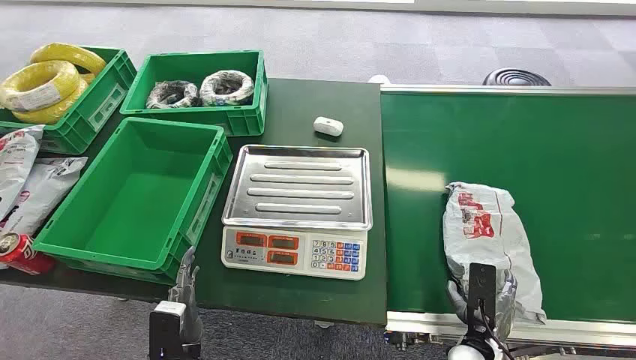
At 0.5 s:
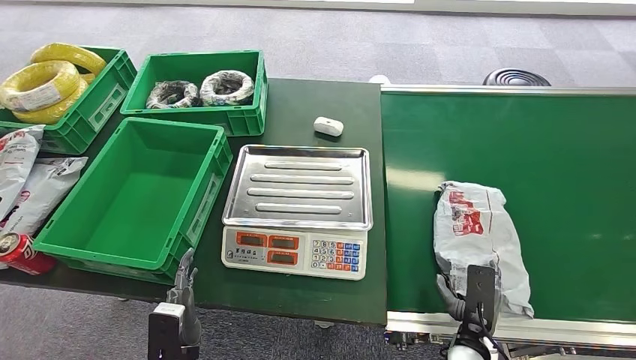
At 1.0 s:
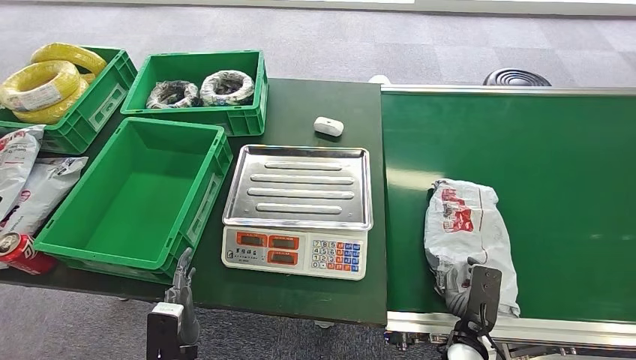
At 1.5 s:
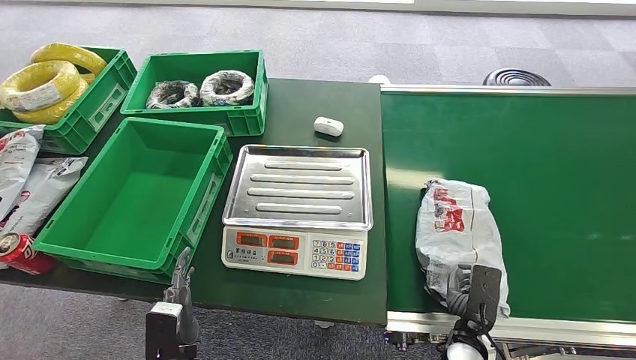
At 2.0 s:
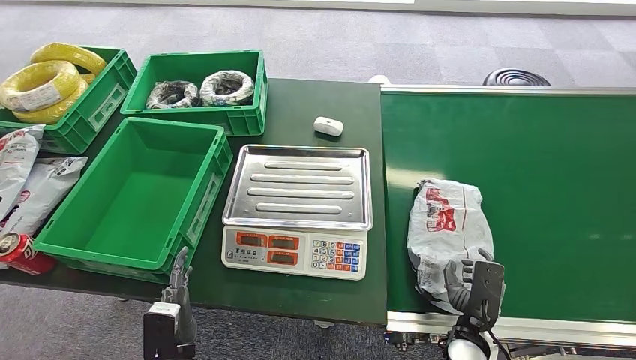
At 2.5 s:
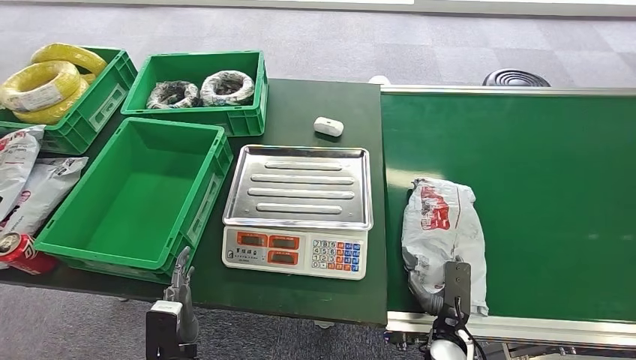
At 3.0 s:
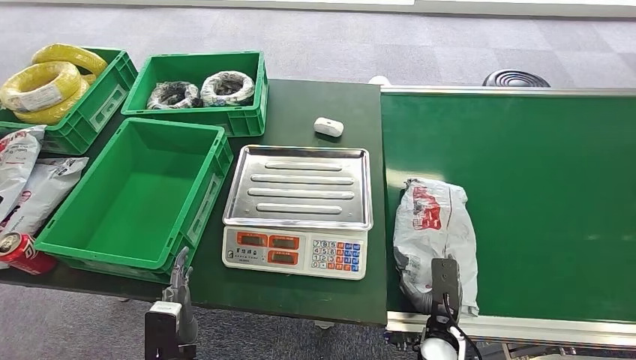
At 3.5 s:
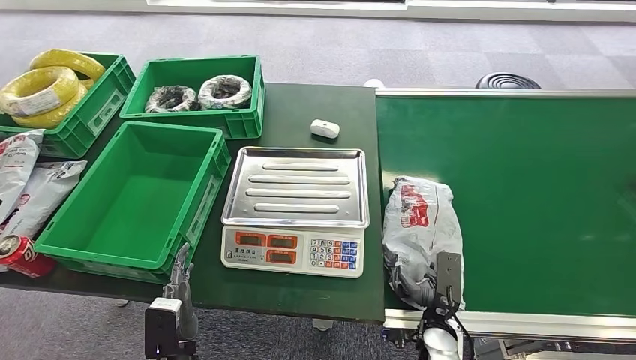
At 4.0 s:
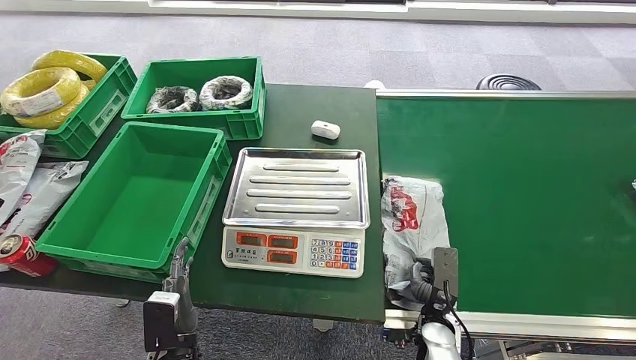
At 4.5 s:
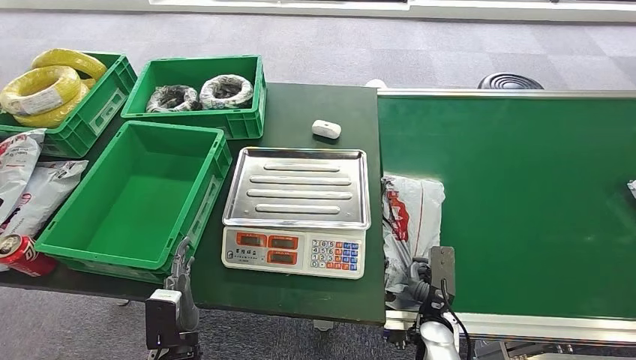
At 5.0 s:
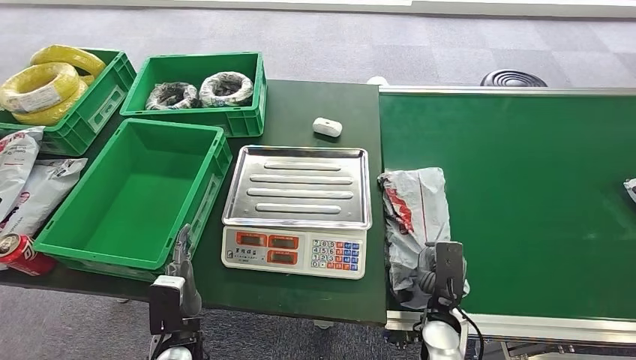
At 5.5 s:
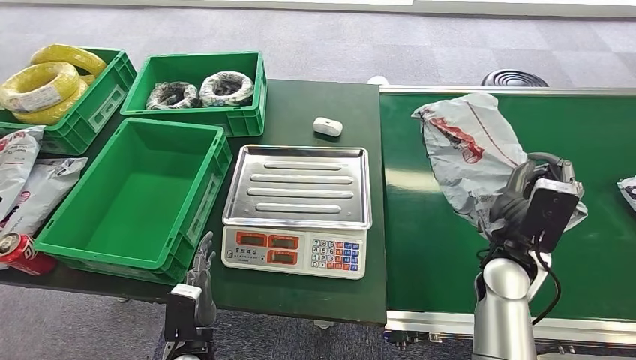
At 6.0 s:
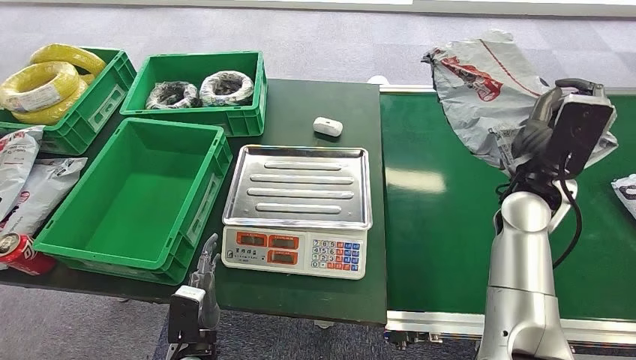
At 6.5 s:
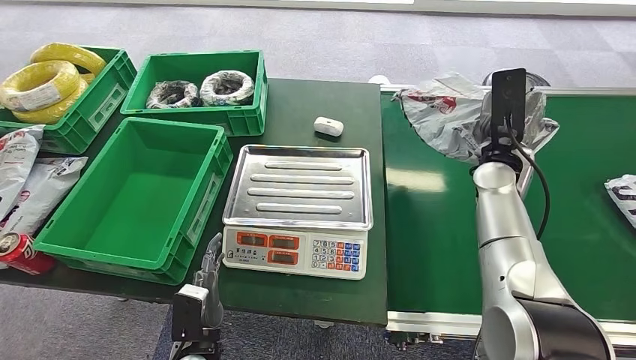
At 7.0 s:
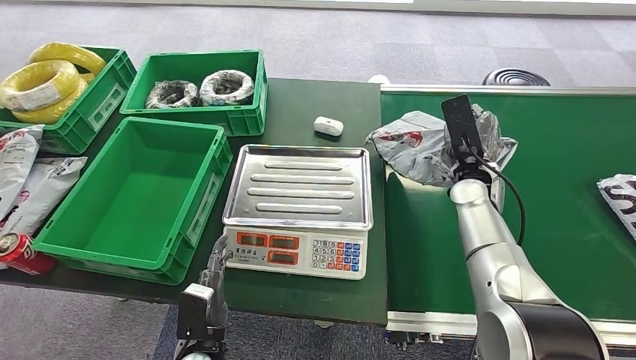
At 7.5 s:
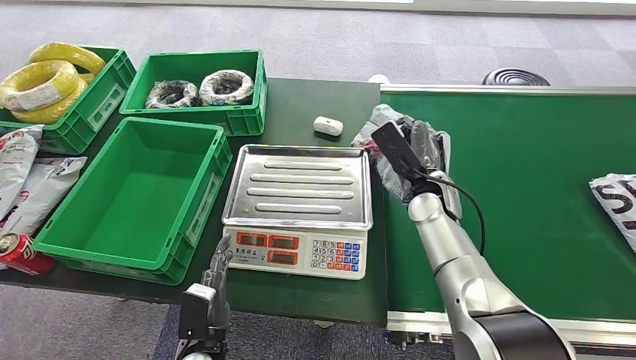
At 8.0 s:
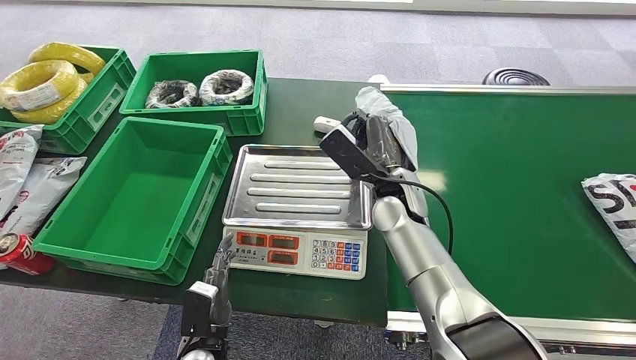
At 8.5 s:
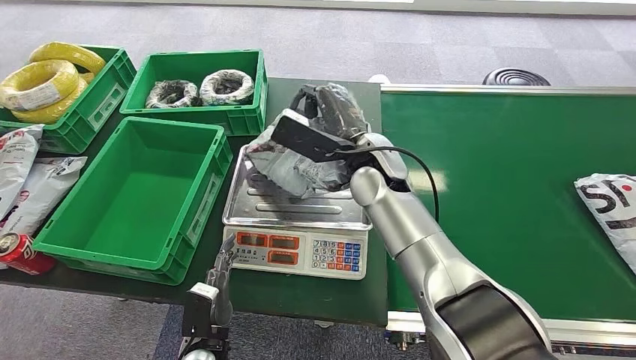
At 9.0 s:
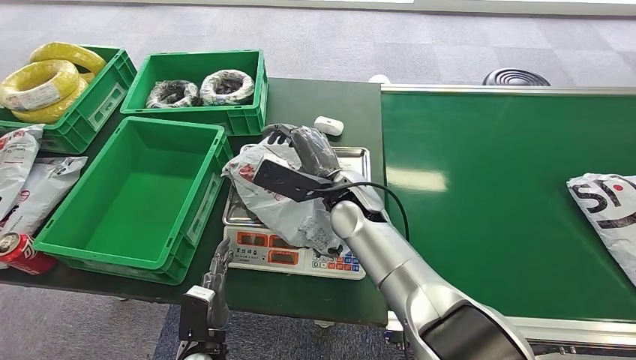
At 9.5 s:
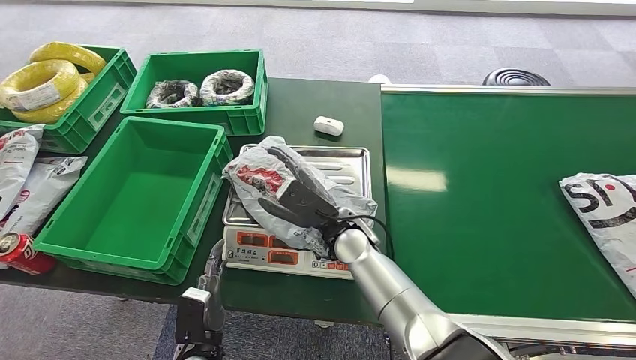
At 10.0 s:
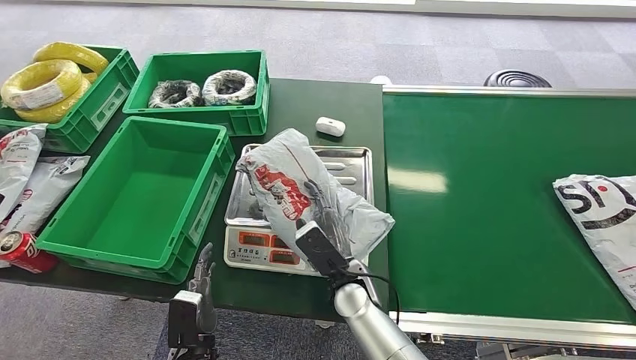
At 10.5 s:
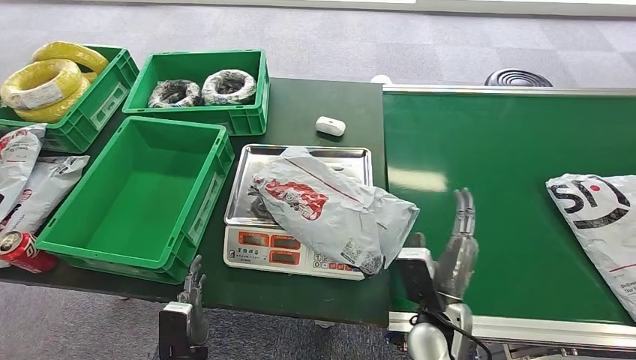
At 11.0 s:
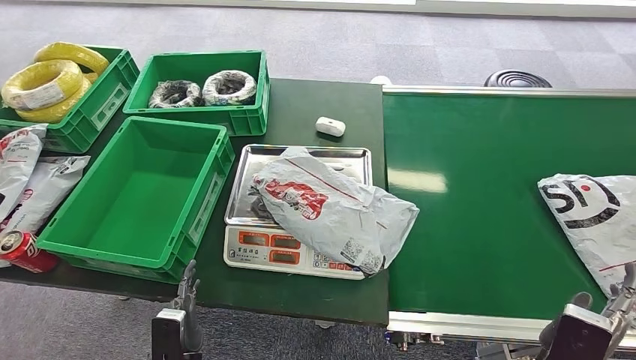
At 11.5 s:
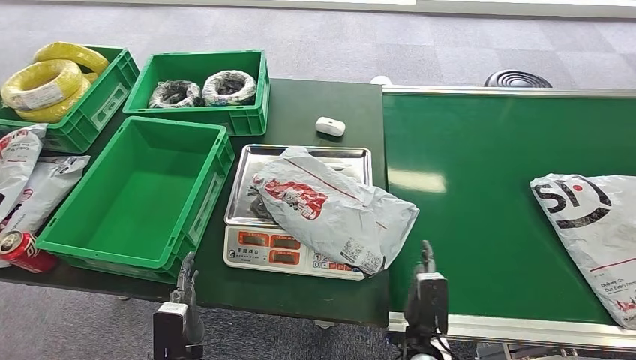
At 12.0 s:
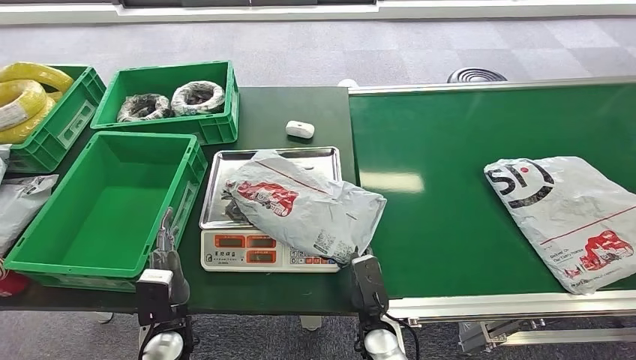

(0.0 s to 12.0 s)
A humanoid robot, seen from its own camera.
Step, 0.0 s - 5.0 s: Pick up the package from the conveyor belt.
Step, 6.0 s - 9.0 s: Place the package onto the inbound machine.

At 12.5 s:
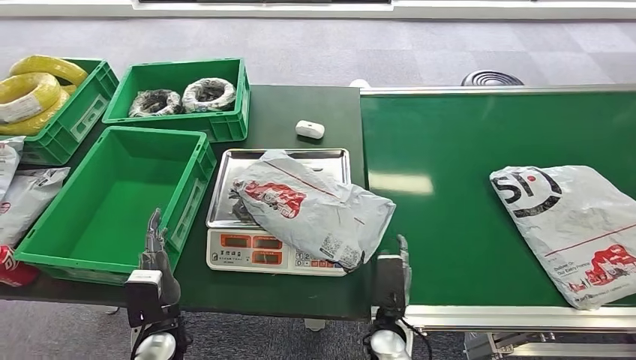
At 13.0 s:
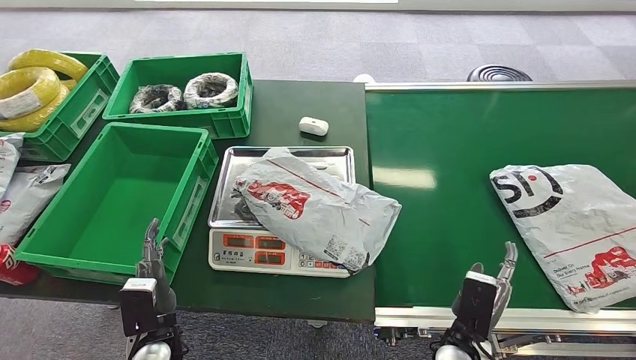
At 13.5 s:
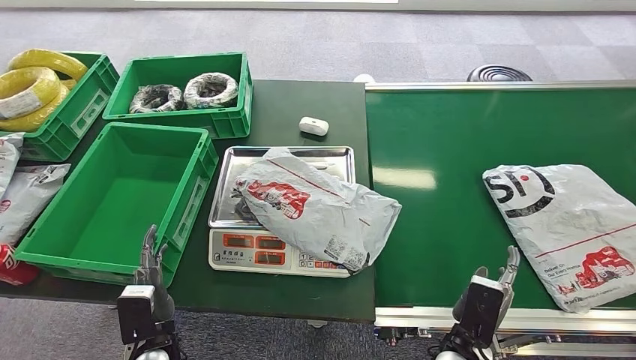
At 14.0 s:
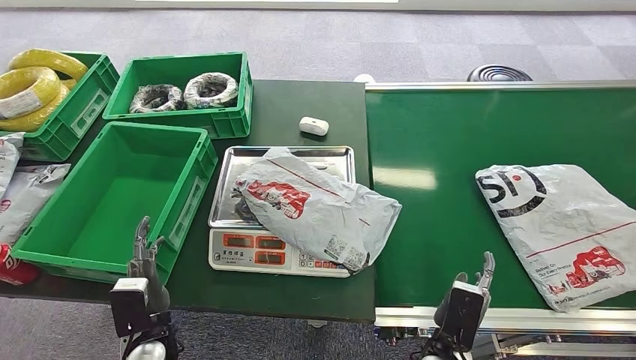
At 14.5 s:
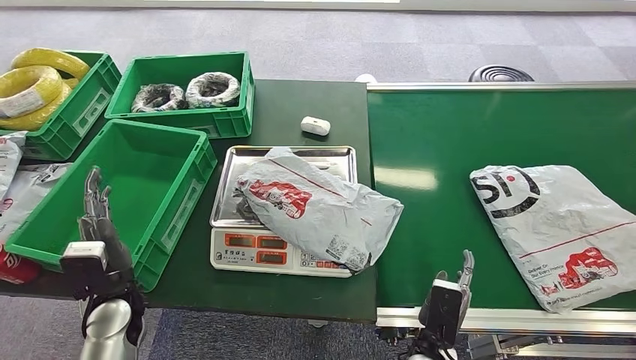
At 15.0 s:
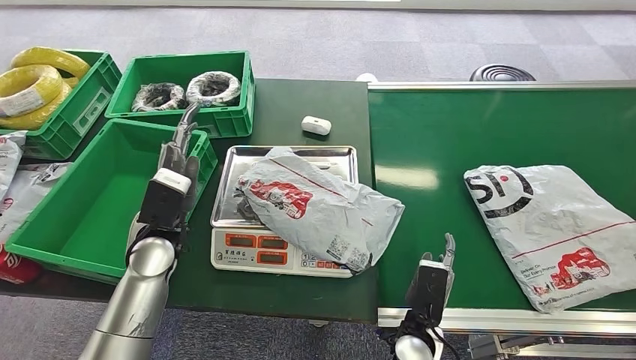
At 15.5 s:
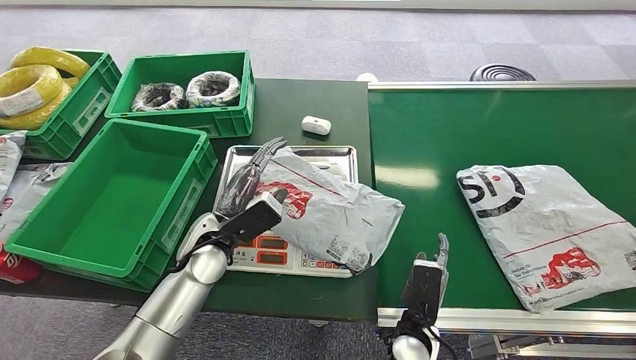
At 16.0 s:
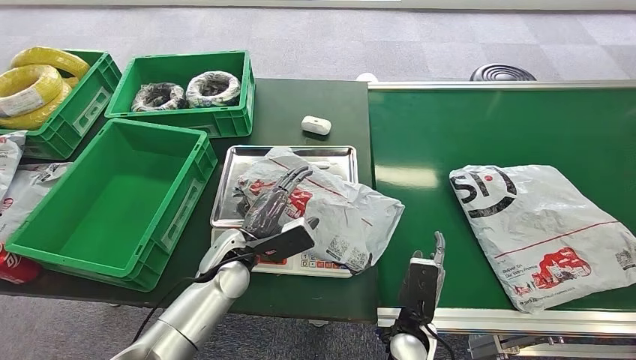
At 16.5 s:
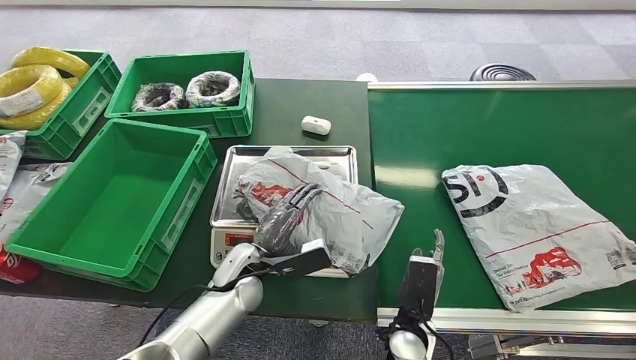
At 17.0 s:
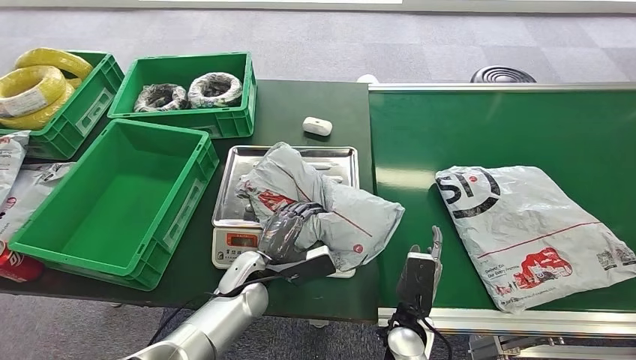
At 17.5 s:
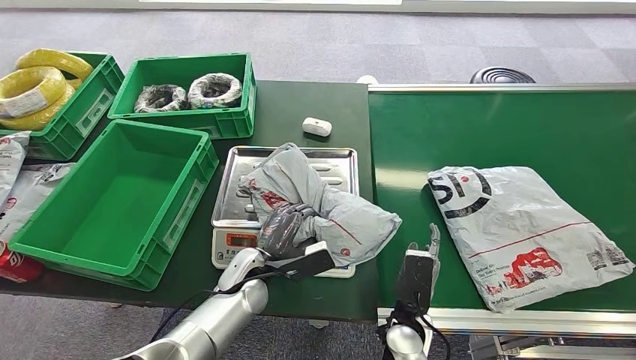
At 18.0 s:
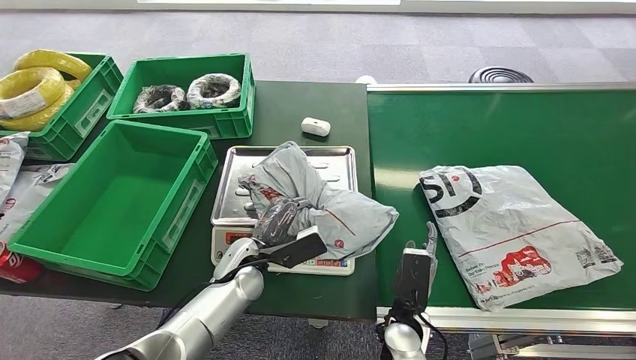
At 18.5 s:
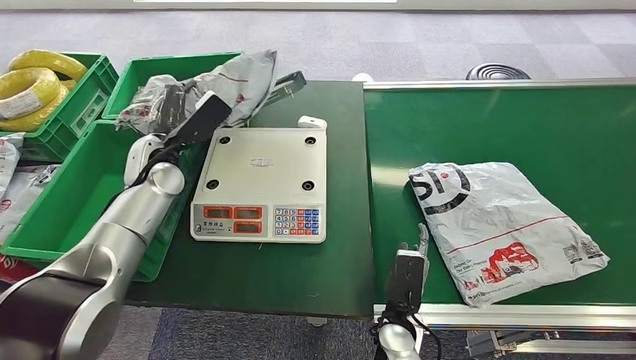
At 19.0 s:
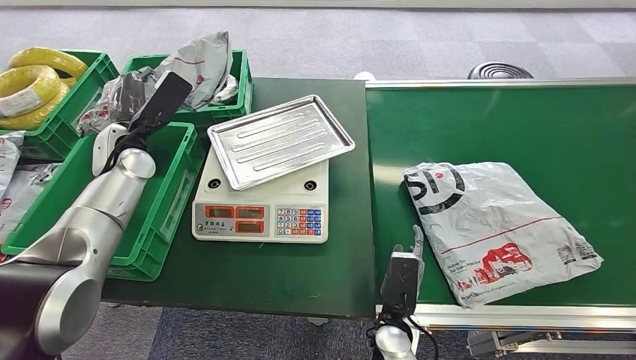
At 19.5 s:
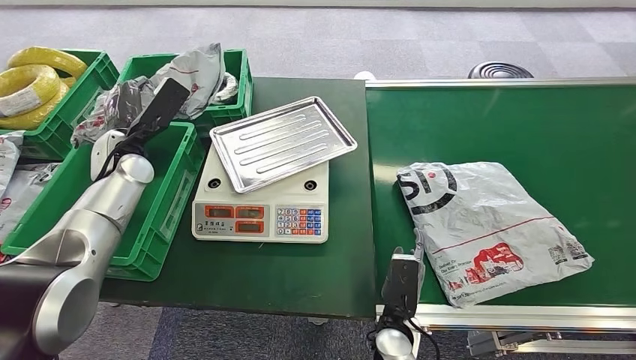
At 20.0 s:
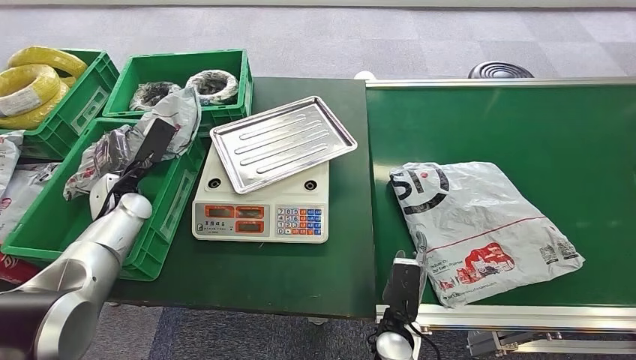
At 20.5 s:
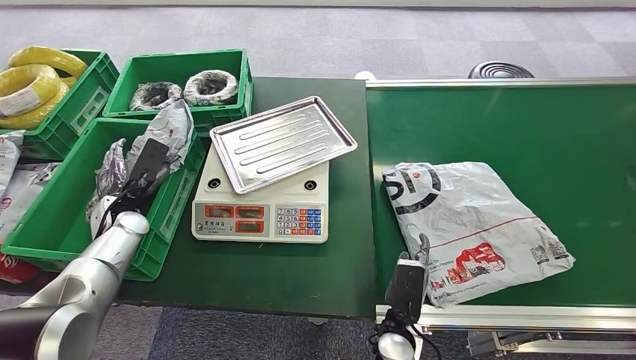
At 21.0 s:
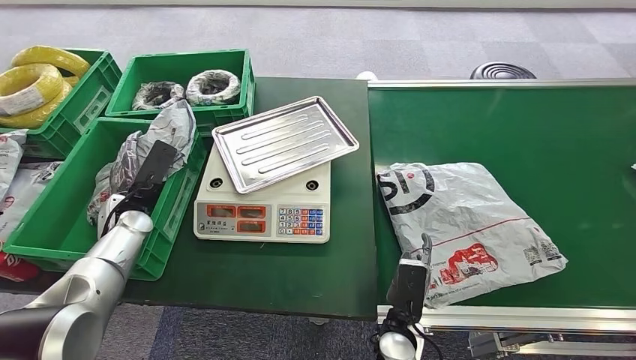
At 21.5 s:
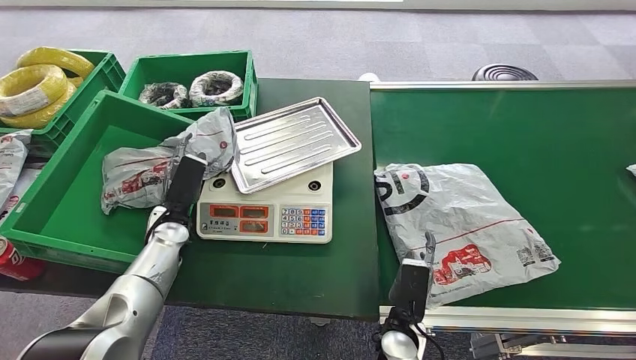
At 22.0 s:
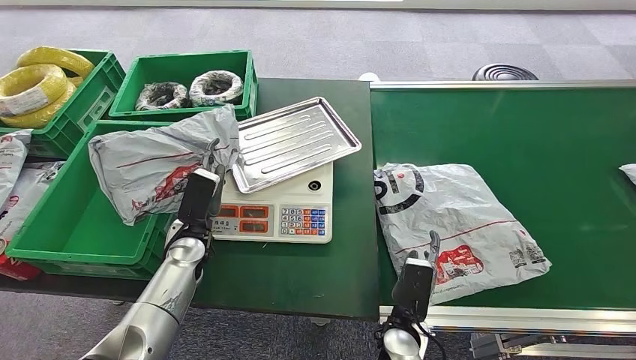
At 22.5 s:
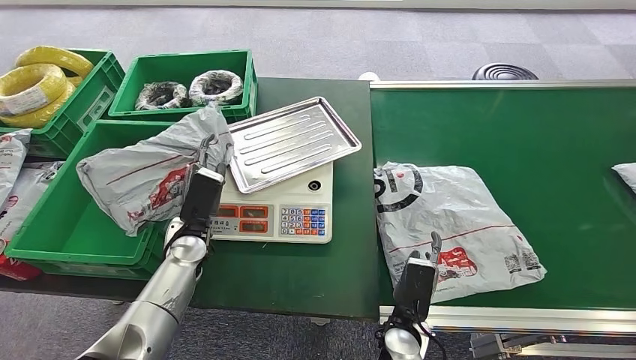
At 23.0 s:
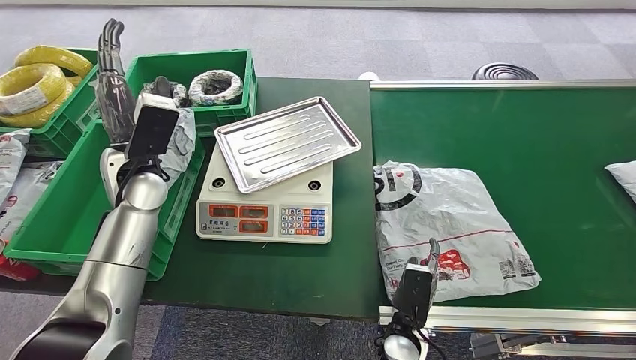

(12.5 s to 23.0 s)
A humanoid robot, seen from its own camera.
Step, 12.5 s - 19.5 s: Pick up the package from the inbound machine.
Step, 20.0 s - 23.0 s: Place the package into the parcel locker.
